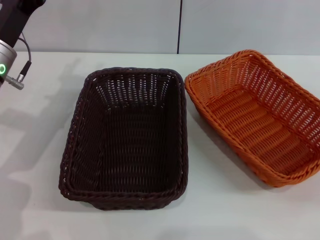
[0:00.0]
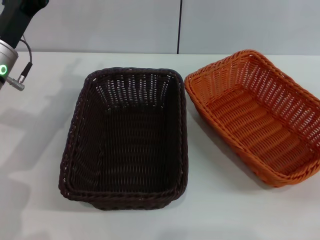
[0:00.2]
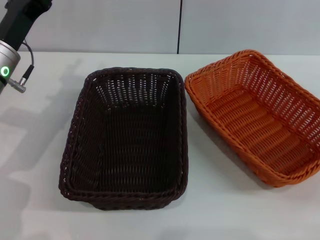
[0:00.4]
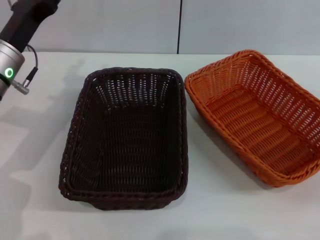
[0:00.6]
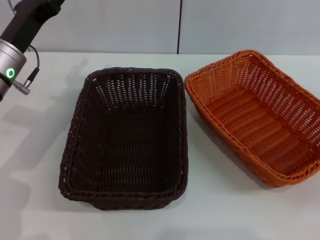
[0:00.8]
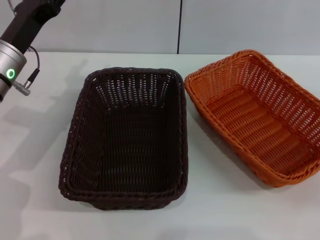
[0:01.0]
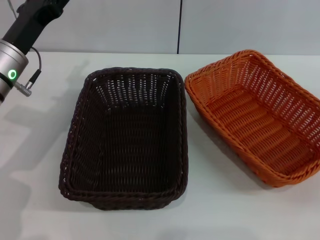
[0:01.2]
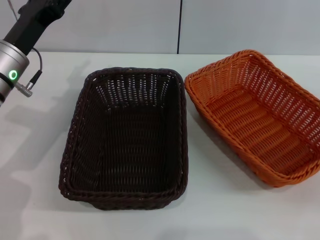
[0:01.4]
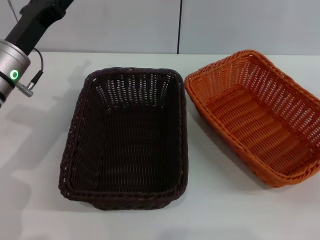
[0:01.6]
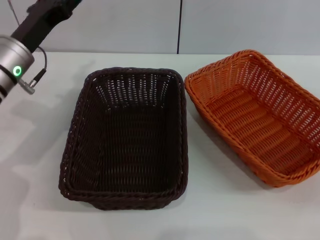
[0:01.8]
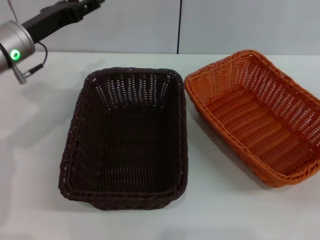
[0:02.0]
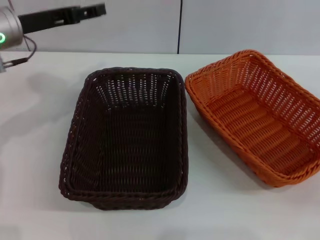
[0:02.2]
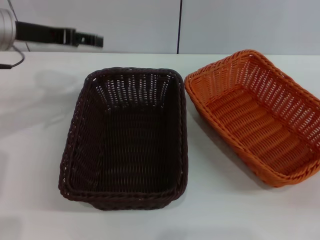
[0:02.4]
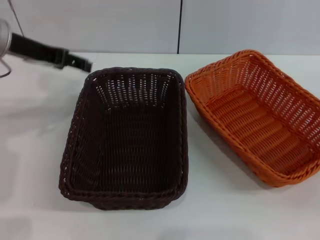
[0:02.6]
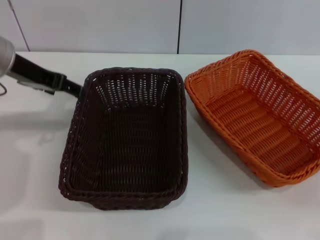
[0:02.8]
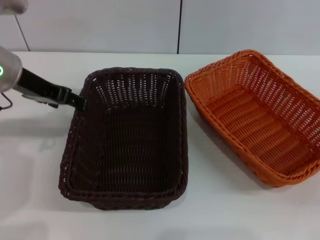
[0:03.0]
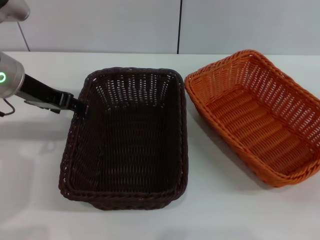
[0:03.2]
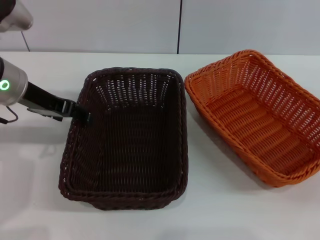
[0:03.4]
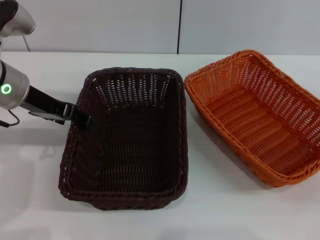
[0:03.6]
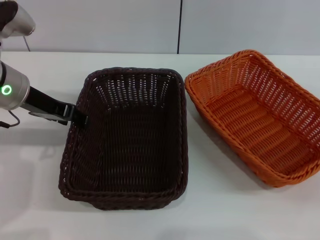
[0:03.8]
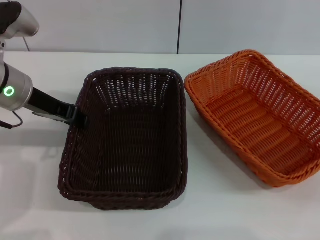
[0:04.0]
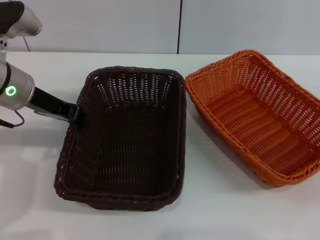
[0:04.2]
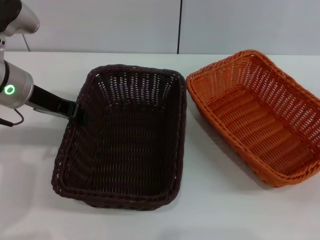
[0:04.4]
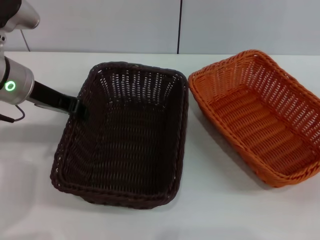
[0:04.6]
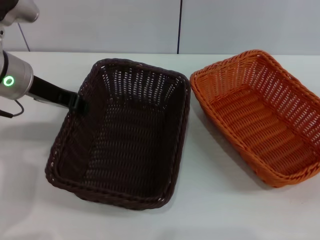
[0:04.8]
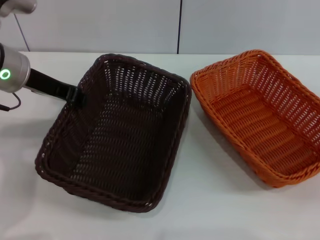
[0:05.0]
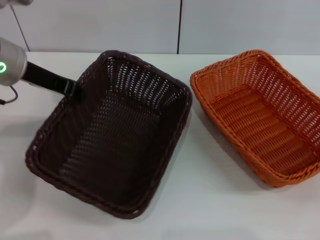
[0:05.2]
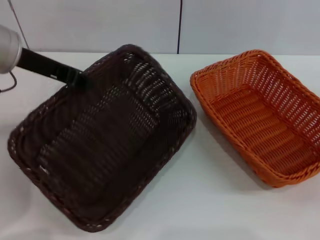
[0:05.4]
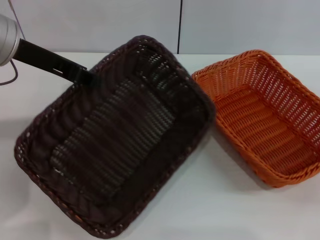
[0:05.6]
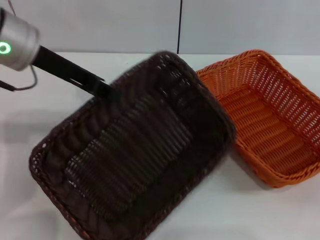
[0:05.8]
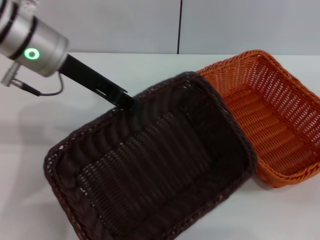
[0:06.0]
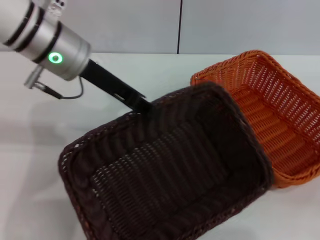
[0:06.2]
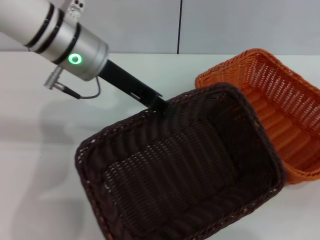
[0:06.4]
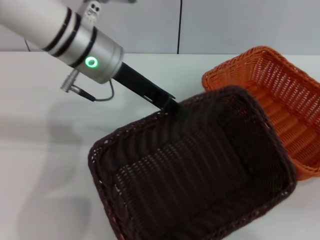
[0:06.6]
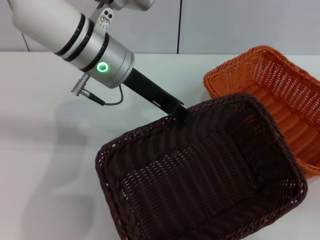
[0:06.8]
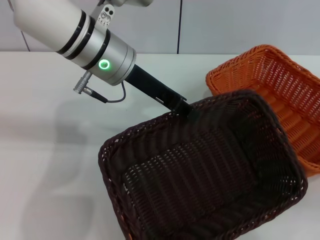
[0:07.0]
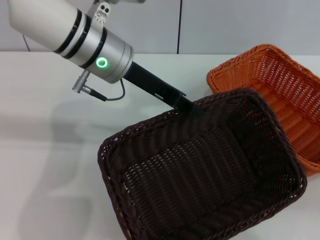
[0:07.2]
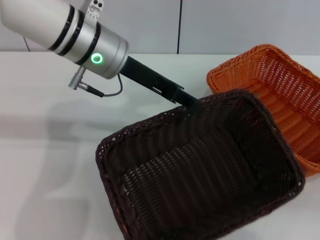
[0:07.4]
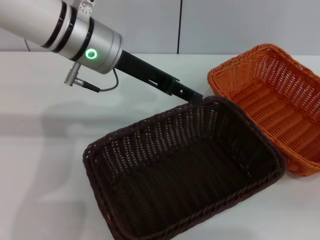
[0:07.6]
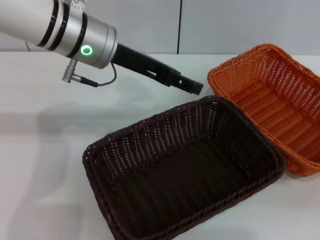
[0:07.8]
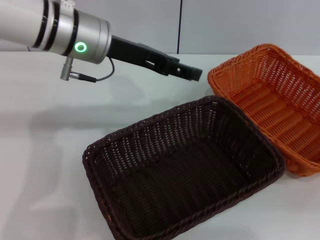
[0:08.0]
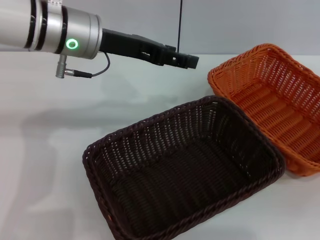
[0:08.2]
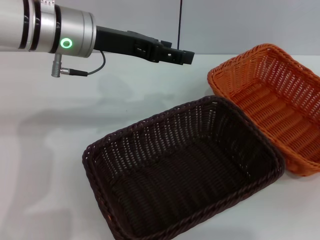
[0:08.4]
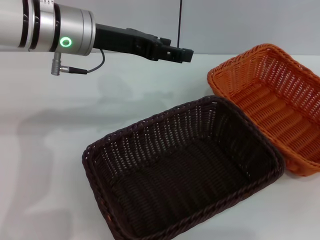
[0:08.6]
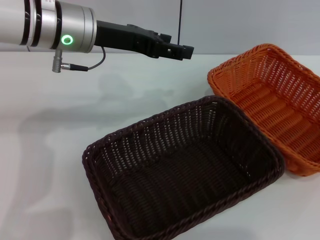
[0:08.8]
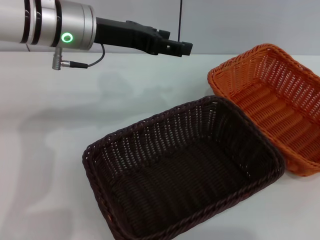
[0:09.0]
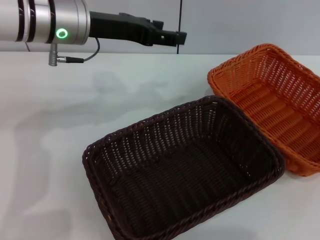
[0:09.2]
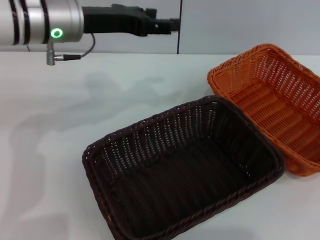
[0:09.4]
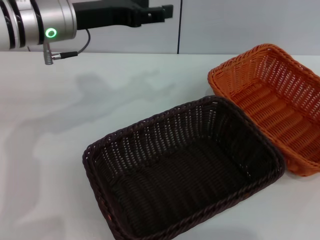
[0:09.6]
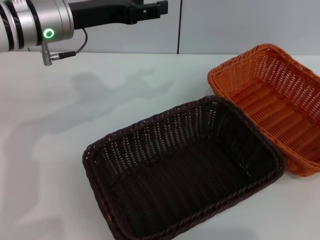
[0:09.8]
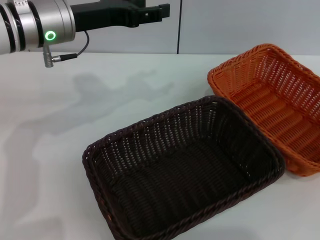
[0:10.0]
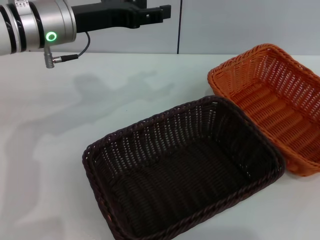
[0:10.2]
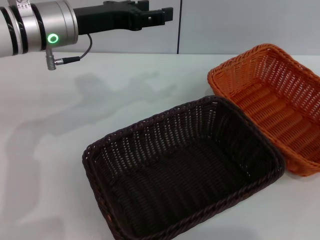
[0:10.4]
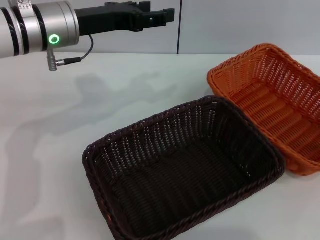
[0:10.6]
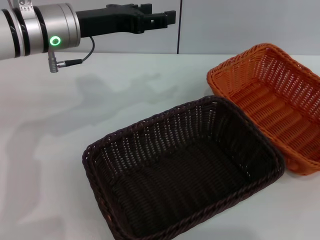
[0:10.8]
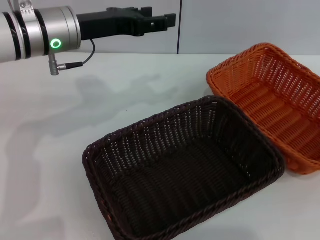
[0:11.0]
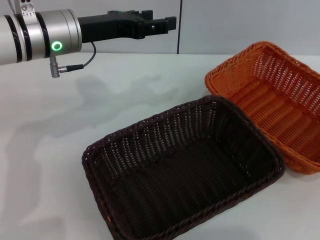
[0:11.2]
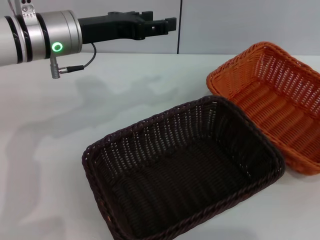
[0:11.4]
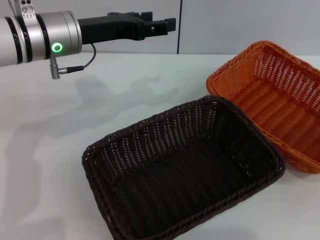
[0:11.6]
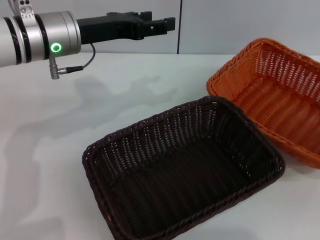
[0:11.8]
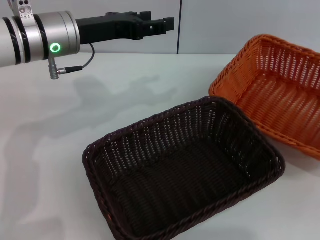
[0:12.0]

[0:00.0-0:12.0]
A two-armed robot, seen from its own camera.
Step, 0:00.0 to 0:05.4: Pick up the dark basket with the left gripper.
Step, 0:05.6 to 0:07.6: Place the dark basket in the center of view with the left gripper.
0:00.0 to 0:01.6: The grippers make only small movements.
0:01.6 to 0:03.0: The left gripper moves upward, some 10 cm.
0:03.0 to 0:04.4: The left gripper closes up.
0:04.4 to 0:06.0: The left gripper moves upward and to the right, about 10 cm.
0:06.0 to 0:07.6: The left gripper shifts about 5 cm to the right, and opens up.
0:07.6 to 0:09.0: The left gripper opens its fingers. The right gripper goes some 20 cm upward and to the right.
0:09.0 to 0:10.4: The right gripper shifts about 5 cm downward.
0:10.4 to 0:12.0: The right gripper closes.

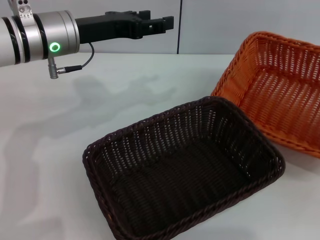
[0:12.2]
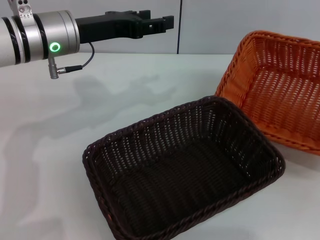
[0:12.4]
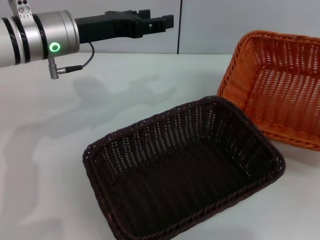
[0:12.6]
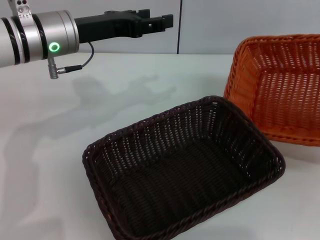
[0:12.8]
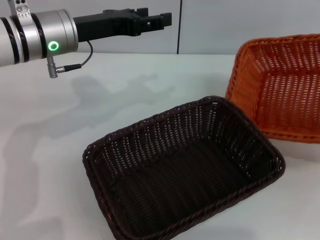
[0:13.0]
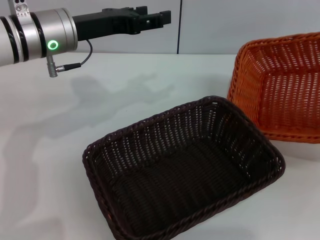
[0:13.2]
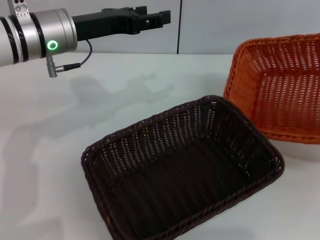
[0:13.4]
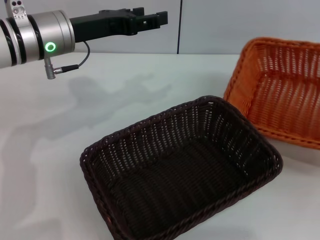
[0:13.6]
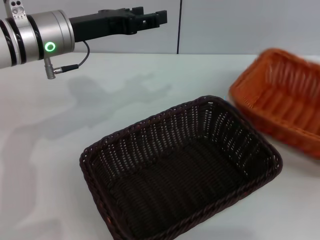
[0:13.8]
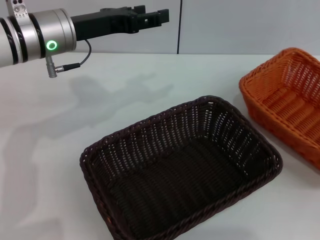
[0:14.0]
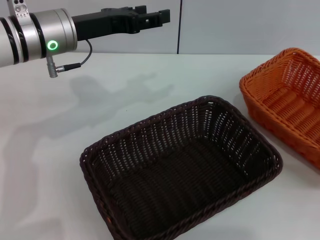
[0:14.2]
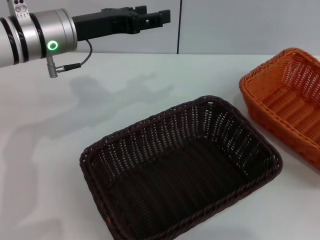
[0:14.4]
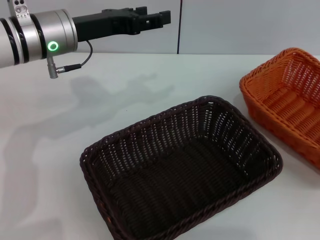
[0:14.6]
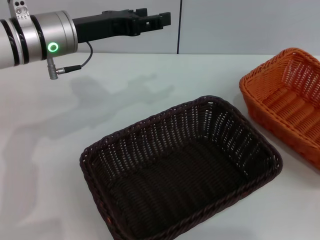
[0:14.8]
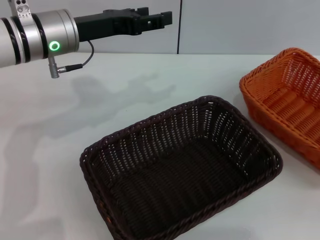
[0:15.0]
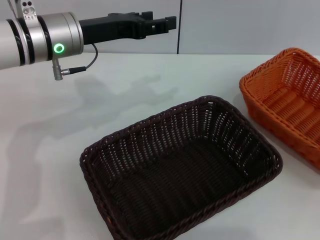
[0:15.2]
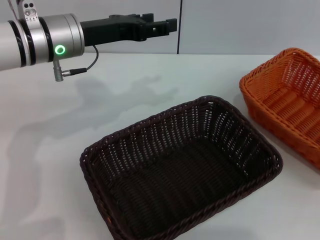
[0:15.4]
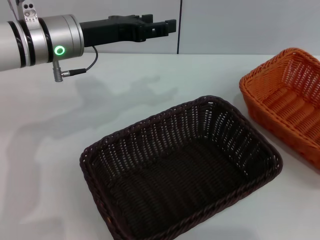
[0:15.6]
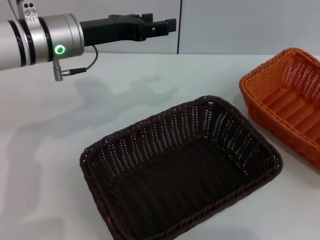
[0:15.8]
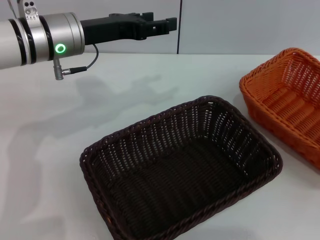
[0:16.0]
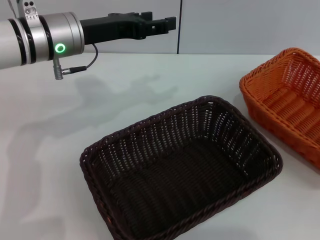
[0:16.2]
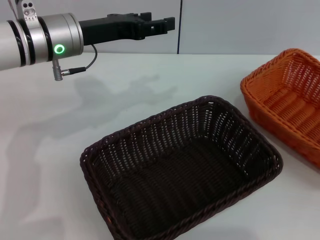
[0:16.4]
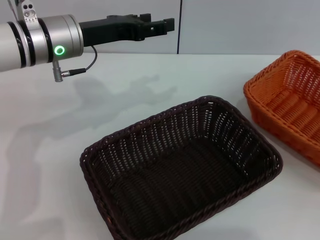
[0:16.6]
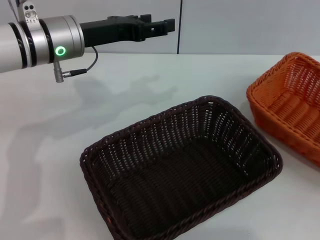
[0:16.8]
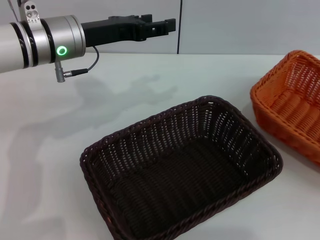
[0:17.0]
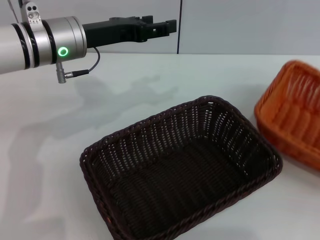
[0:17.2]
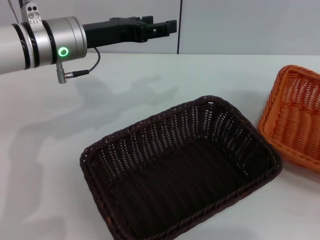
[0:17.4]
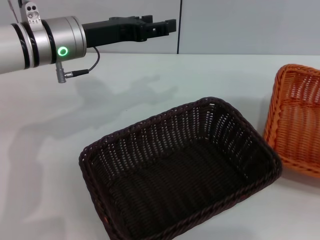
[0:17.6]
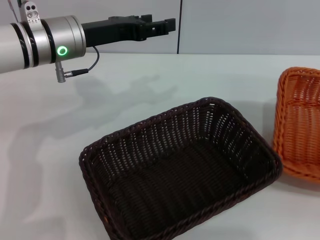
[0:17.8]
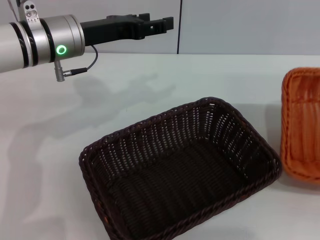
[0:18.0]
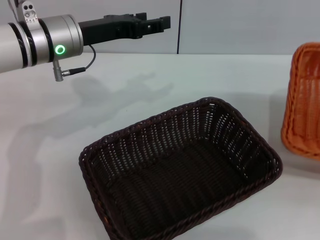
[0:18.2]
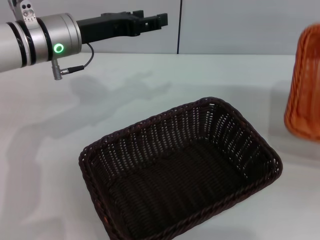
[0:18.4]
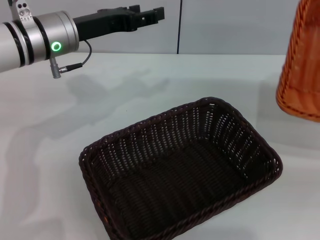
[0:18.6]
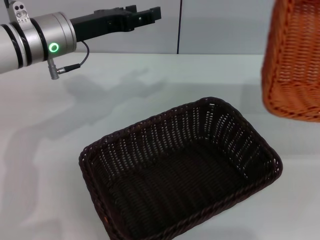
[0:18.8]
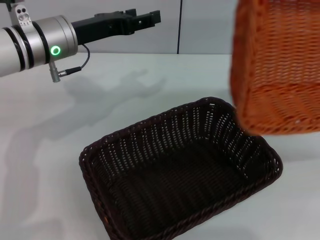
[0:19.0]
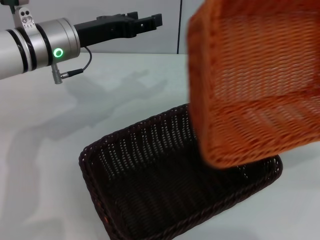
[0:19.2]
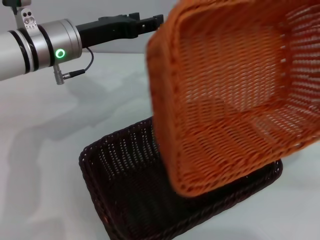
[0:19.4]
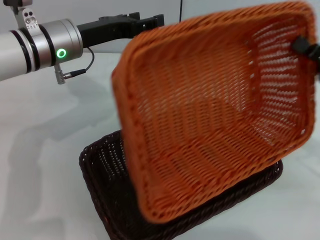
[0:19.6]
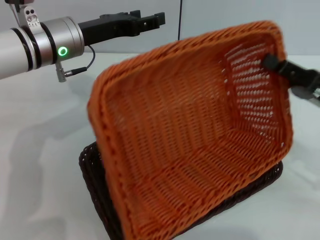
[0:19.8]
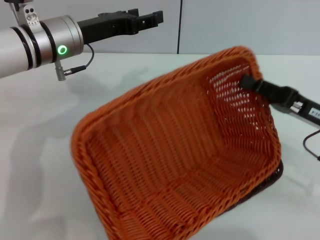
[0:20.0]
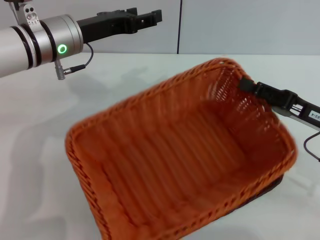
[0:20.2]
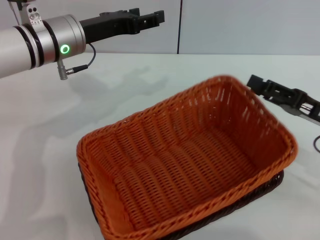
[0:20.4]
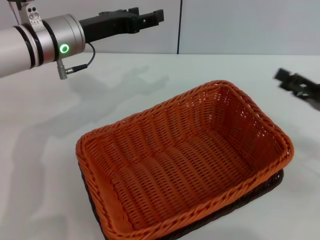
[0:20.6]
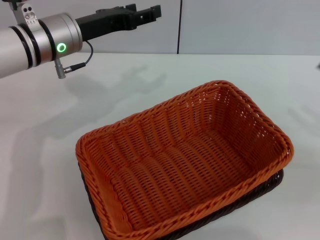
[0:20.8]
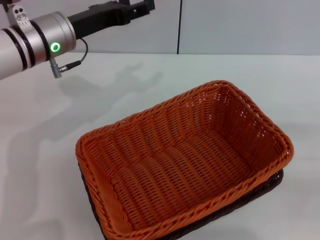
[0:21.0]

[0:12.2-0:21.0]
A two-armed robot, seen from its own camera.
Step, 0:12.2 to 0:18.0: Pick up the light basket with the right gripper.
Step, 0:18.2 to 0:20.4: Place the light basket on the dark basket with the right gripper.
0:13.6 to 0:15.2: The right gripper opens its fingers.
0:15.2 to 0:16.6: The grippers move only a little.
0:16.6 to 0:18.0: The right gripper closes its fingers.
0:18.0 to 0:19.6: The right gripper is displaced to the left by some 20 cm.
0:19.6 to 0:21.0: The right gripper travels to the right by about 10 cm, and opens up.
